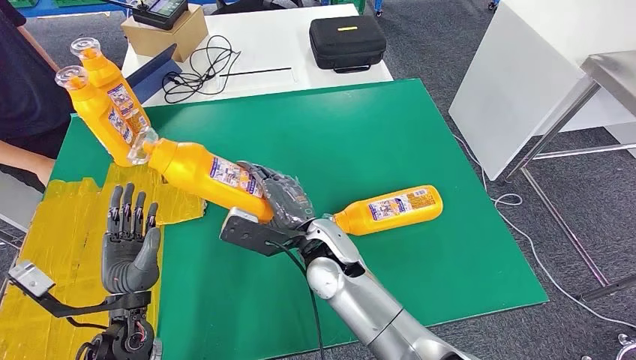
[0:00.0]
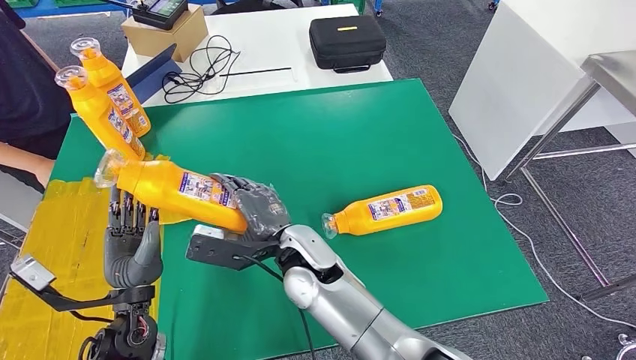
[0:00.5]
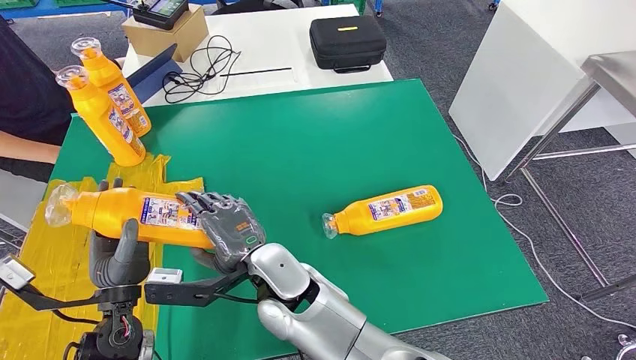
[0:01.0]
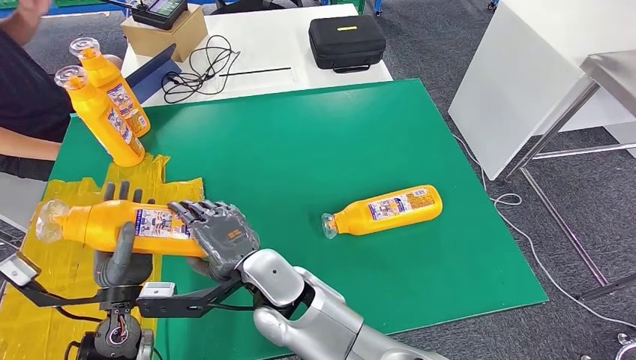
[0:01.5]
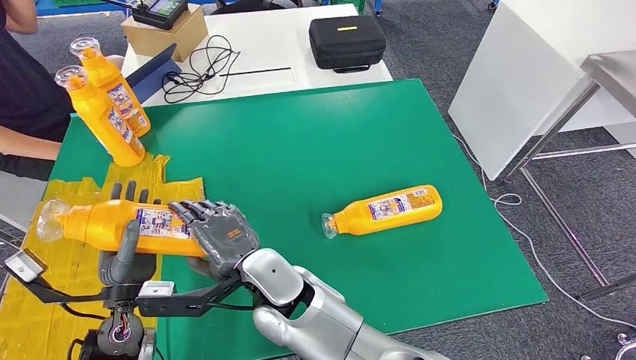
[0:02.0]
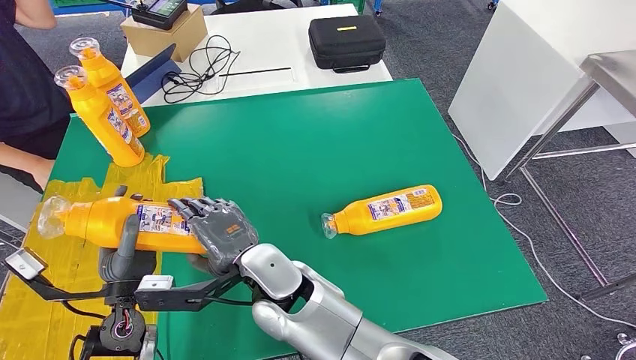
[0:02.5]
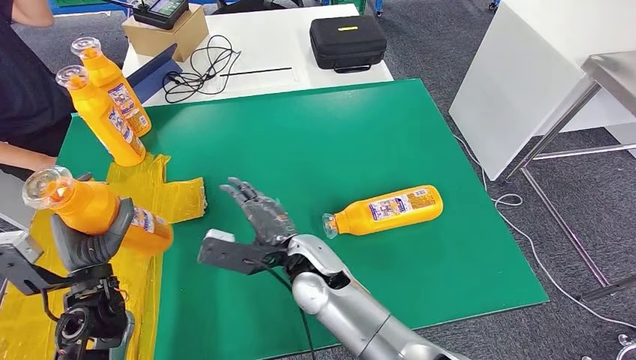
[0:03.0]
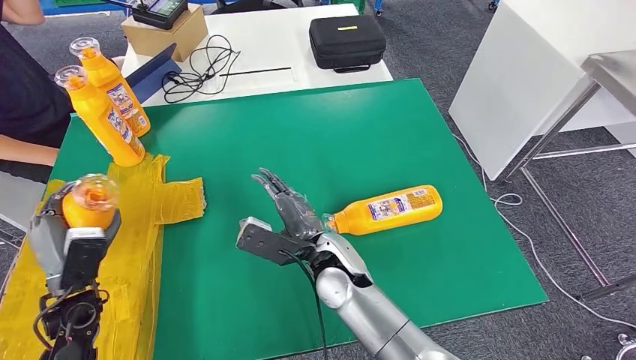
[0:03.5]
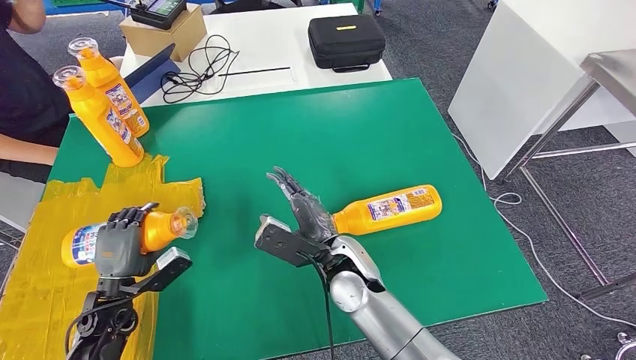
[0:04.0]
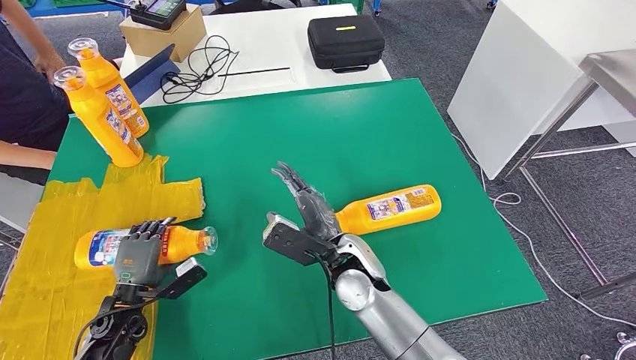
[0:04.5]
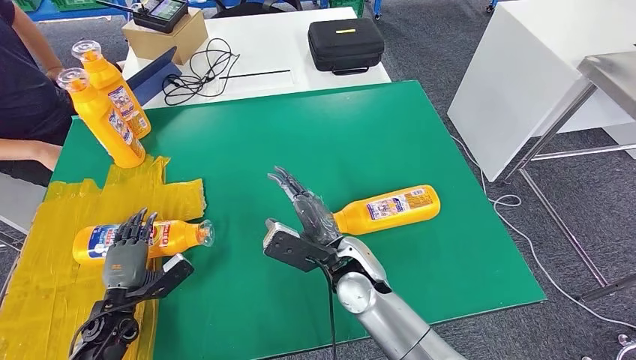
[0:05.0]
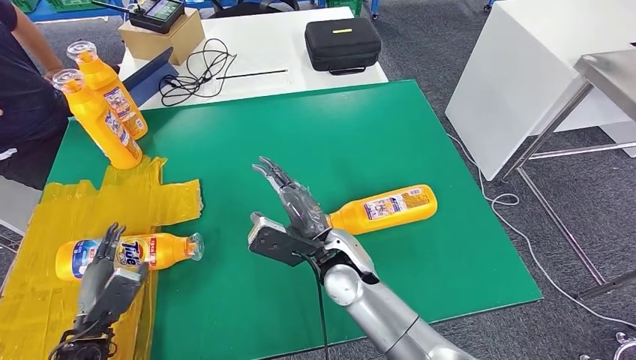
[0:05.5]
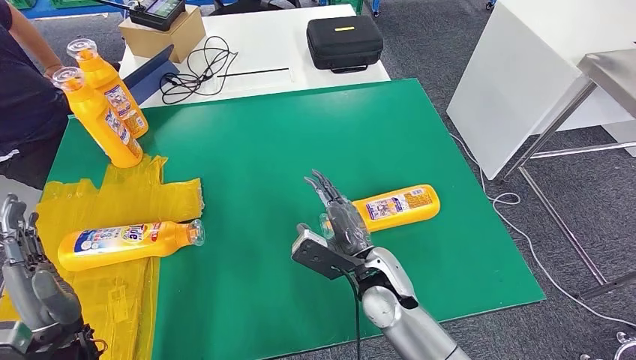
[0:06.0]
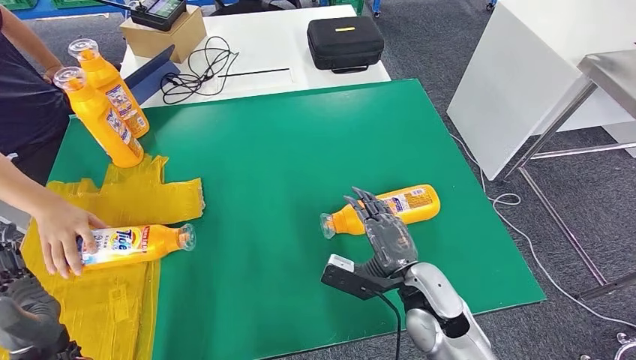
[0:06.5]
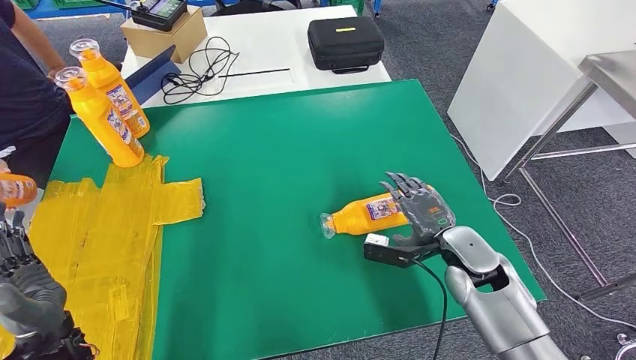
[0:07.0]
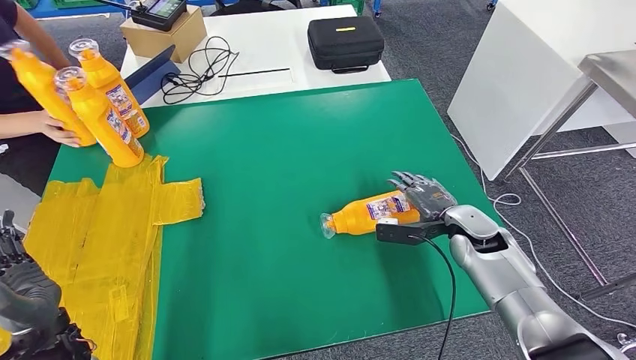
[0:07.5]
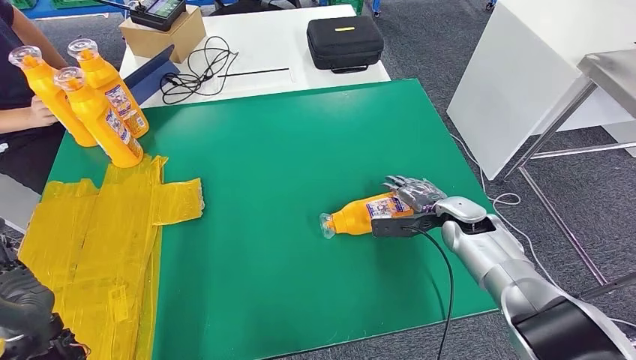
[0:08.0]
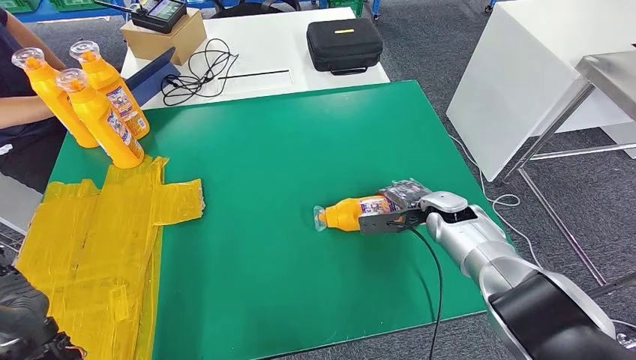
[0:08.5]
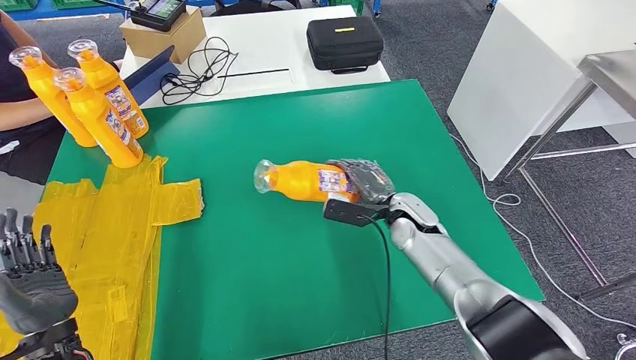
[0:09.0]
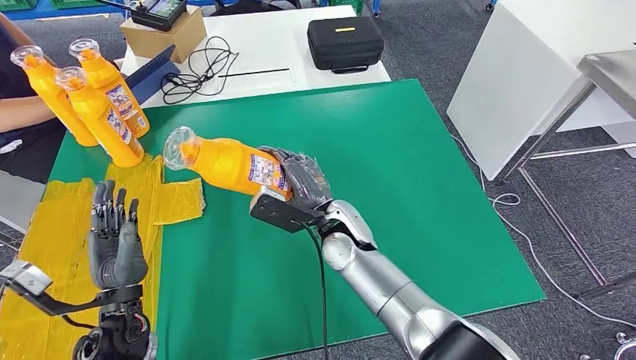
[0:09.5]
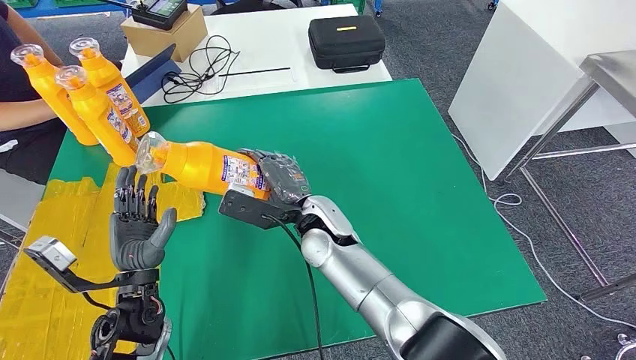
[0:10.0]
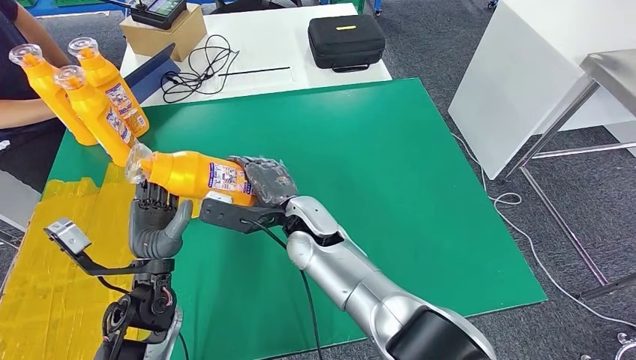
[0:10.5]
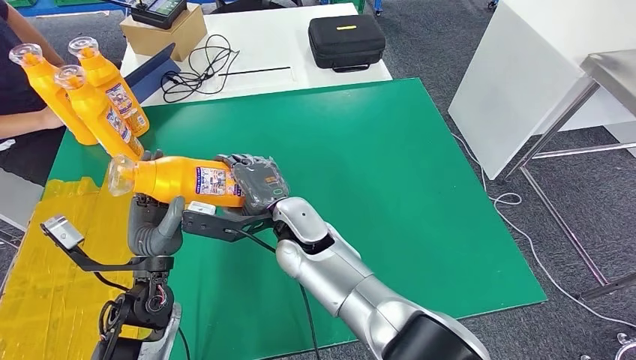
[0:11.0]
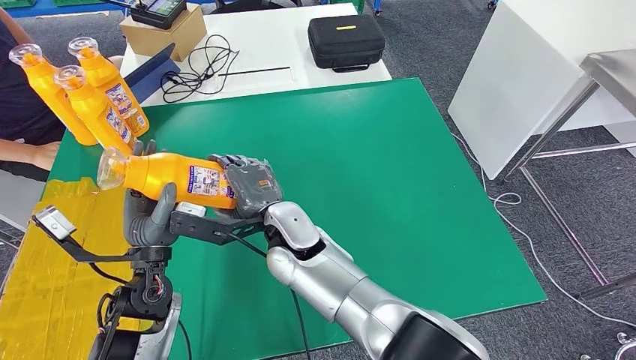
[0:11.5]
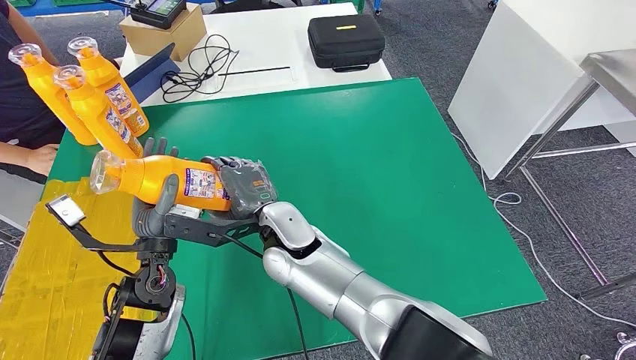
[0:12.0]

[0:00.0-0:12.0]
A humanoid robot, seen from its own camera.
Step, 0:01.0 to 0:05.0: Flip the bottle to face forward.
Step, 0:05.5 to 0:10.5: Pick up the bottle from the table.
0:02.0 to 0:04.0: The right hand travels to the right by approximately 10 cm. Meanwhile the left hand heads downward and to the left, covering about 10 cm.
0:04.0 to 0:06.0: The right hand travels to the right by some 5 cm. Meanwhile the left hand is displaced upward and backward by approximately 10 cm.
0:06.0 to 0:08.0: The right hand is displaced to the right and forward by approximately 25 cm.

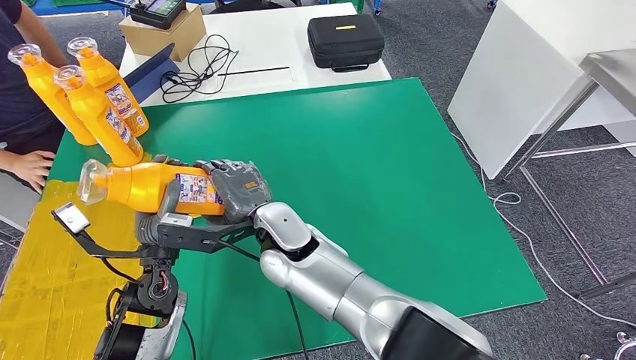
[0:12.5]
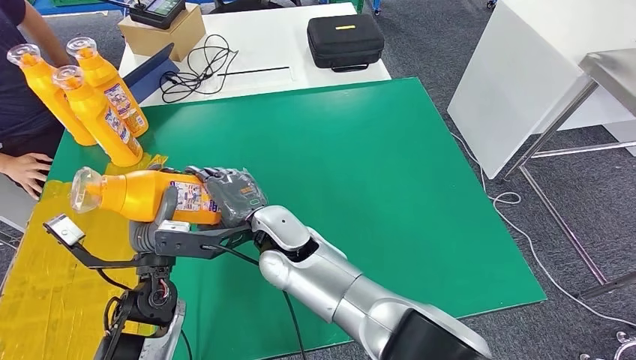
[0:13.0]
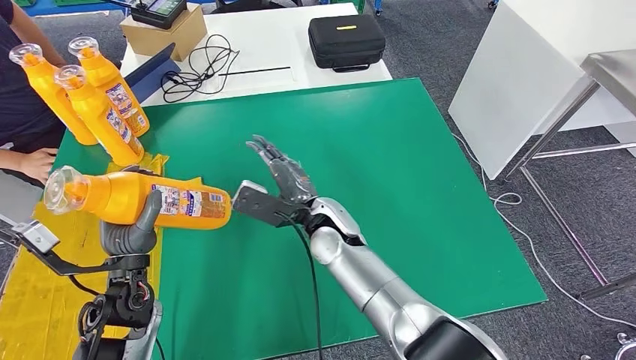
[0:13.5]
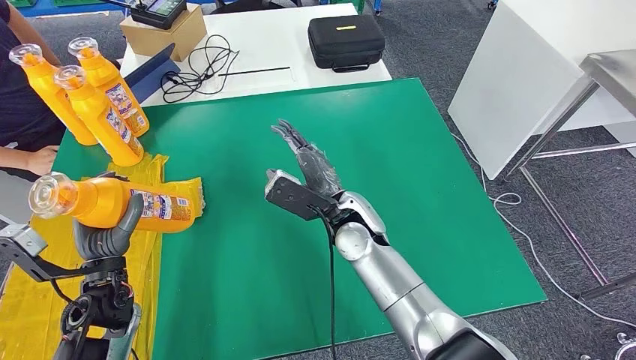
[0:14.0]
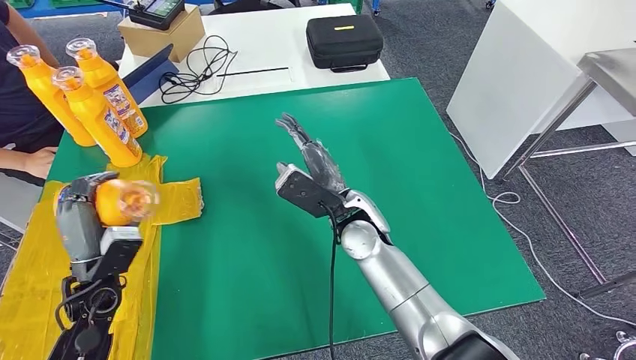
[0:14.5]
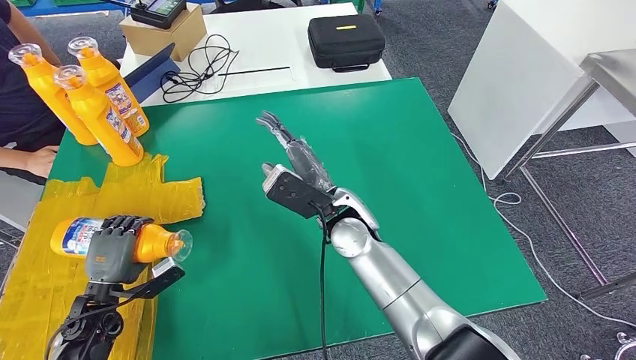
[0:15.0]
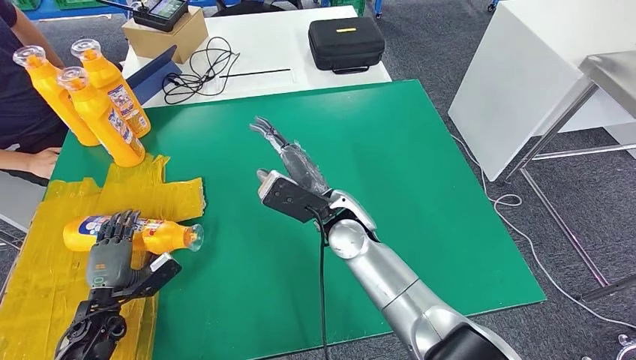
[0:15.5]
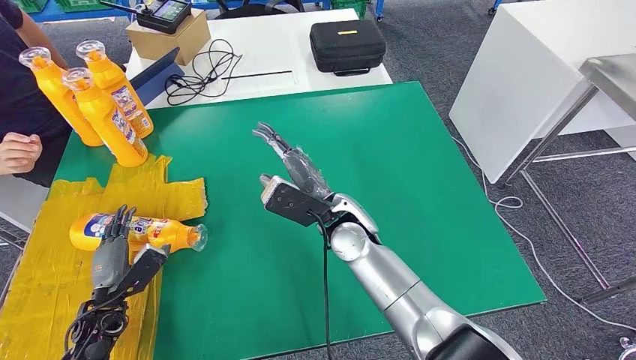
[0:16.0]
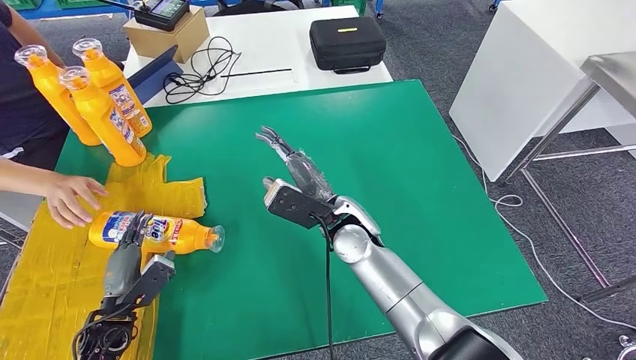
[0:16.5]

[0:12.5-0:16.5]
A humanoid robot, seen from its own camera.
Step, 0:12.5 to 0:16.5: Flip the bottle to face forward.
